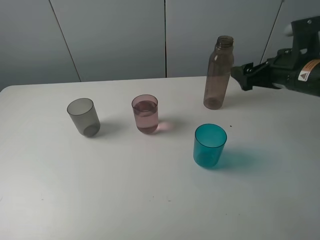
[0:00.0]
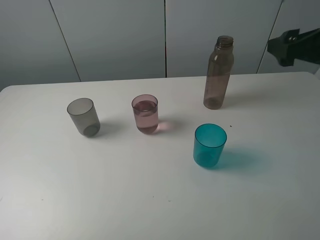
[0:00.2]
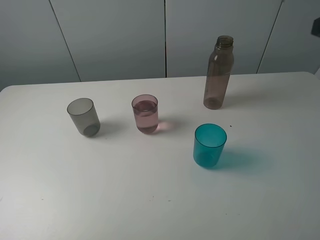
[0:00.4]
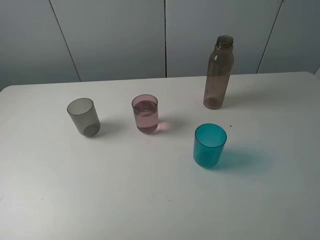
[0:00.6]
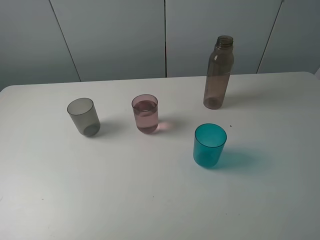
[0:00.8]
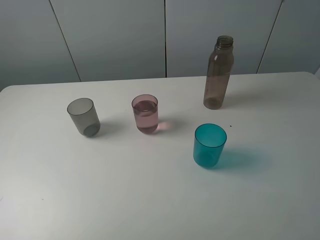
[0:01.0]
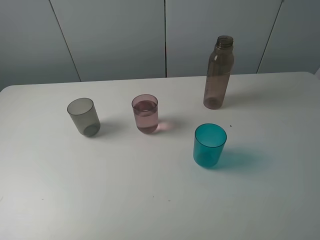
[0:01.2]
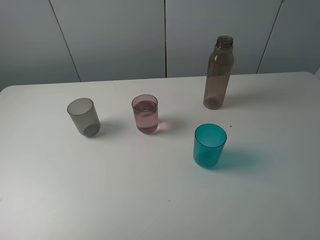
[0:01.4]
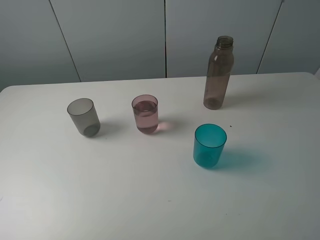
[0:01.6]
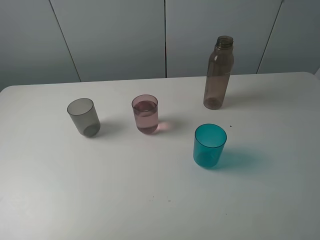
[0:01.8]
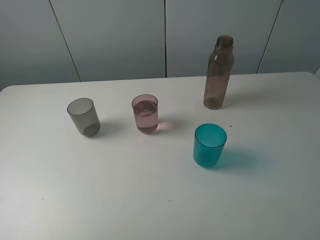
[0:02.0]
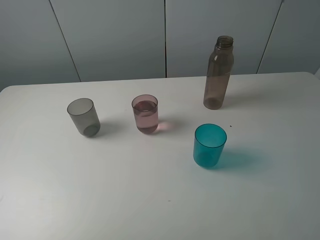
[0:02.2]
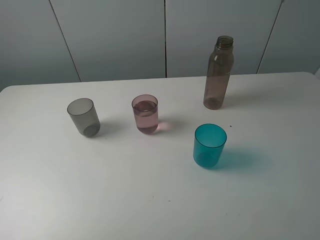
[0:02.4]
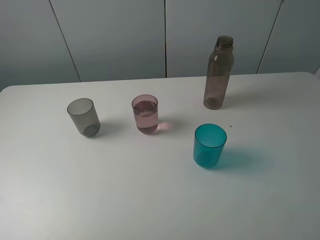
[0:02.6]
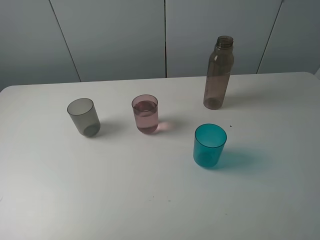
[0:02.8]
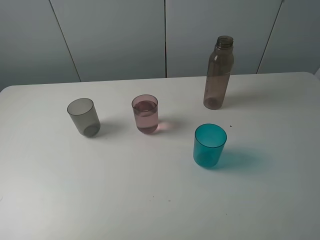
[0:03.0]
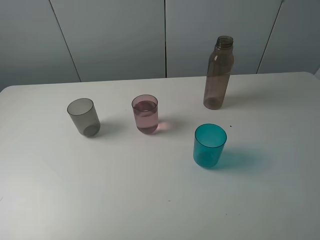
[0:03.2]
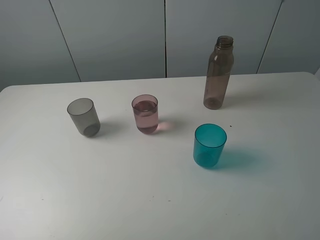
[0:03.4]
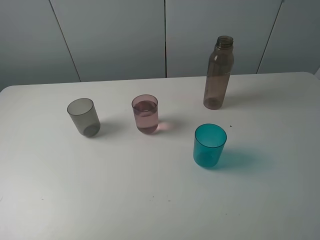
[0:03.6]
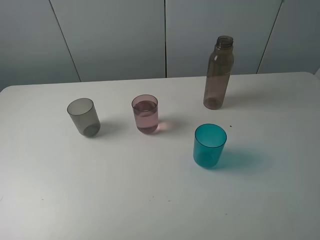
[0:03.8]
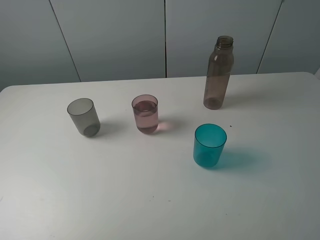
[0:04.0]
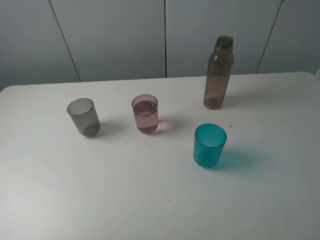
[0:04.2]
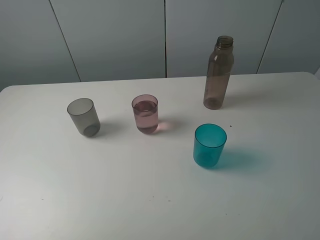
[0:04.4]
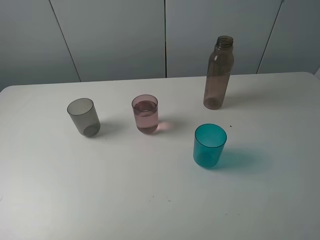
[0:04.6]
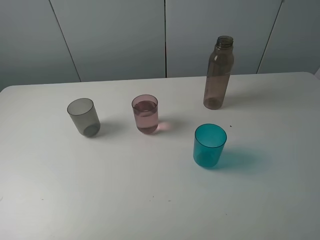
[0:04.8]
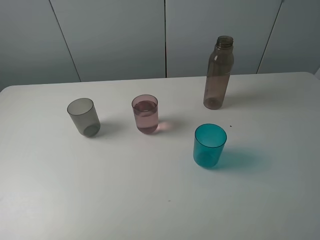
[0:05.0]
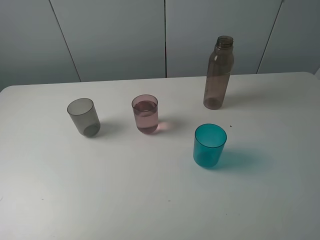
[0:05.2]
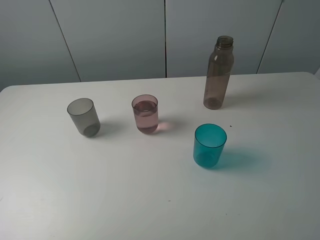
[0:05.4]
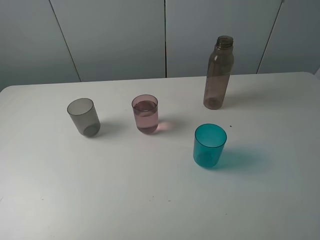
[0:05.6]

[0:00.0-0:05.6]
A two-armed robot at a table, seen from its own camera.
Task of the whole recording: pick up the bottle filled with water and pour water into the middle cup of the three cups.
0:00.0 to 0:01.4: The right gripper shifts roughly 30 cm backward.
0:02.8 to 0:05.6: Both grippers stay put.
